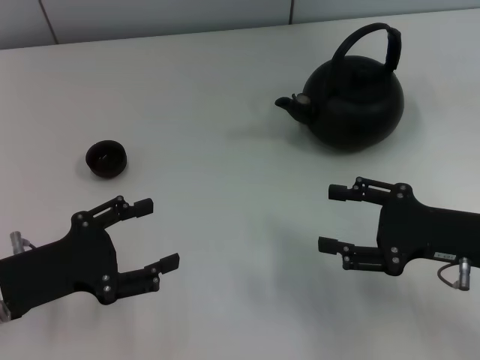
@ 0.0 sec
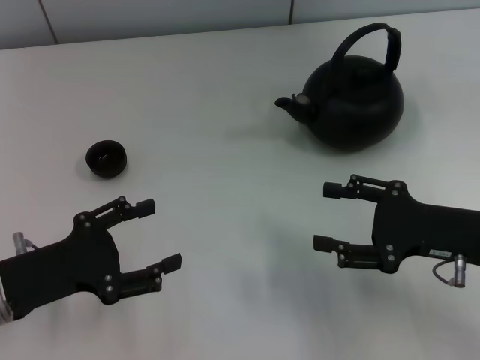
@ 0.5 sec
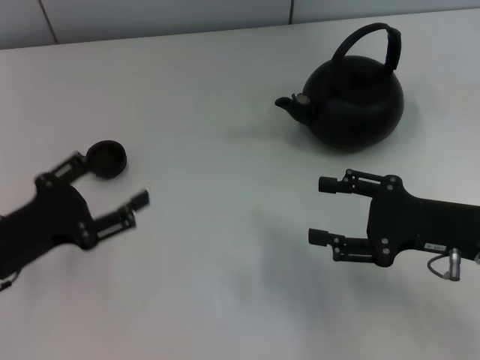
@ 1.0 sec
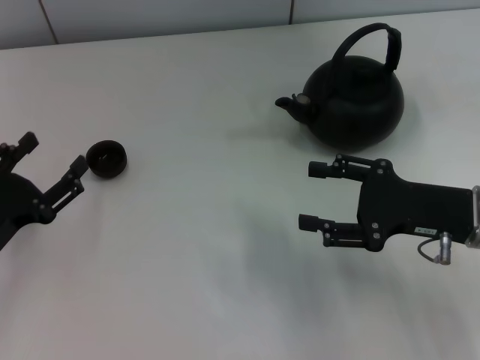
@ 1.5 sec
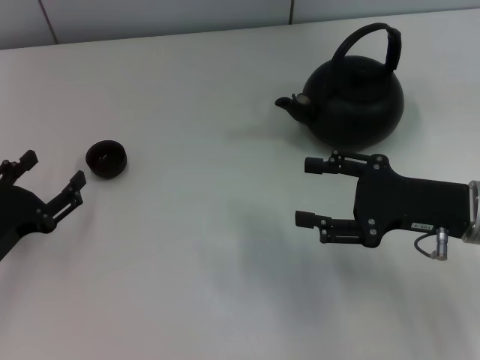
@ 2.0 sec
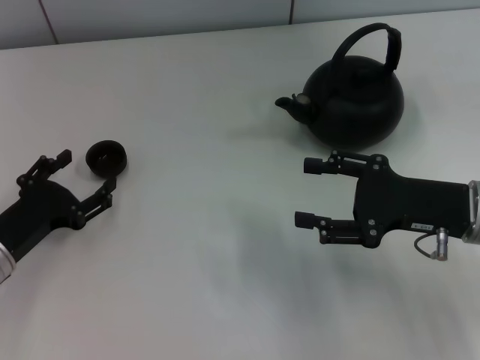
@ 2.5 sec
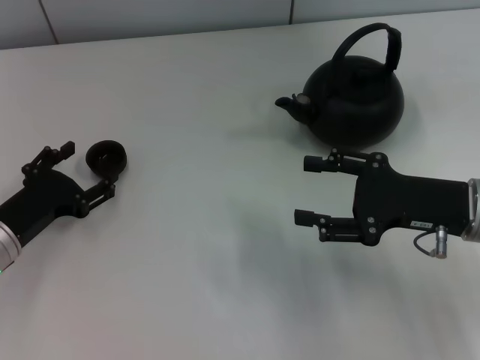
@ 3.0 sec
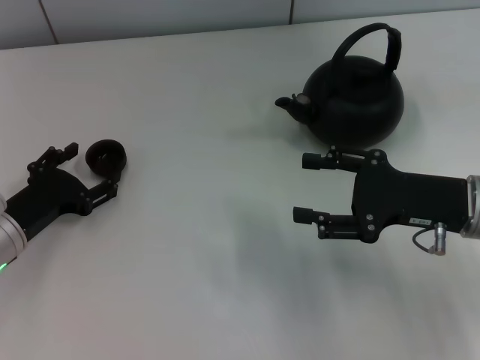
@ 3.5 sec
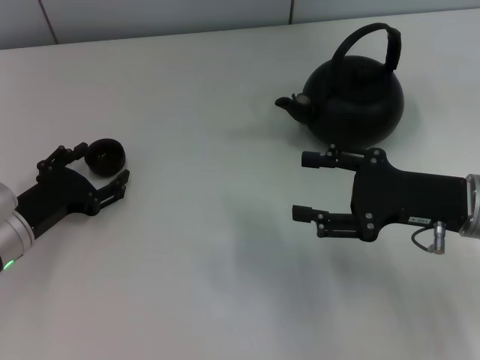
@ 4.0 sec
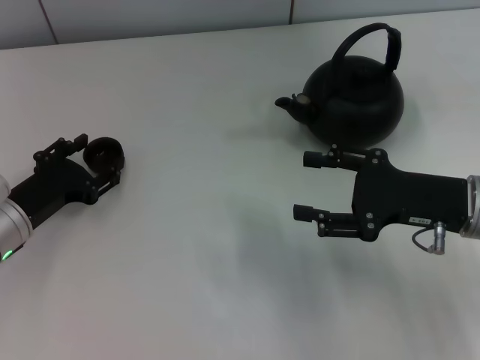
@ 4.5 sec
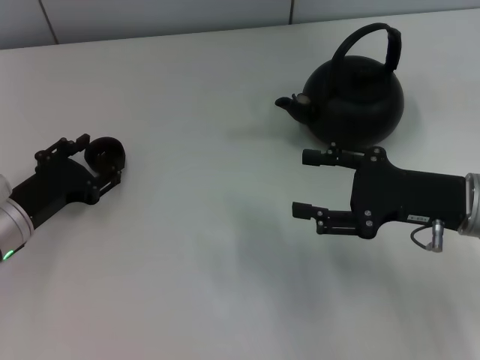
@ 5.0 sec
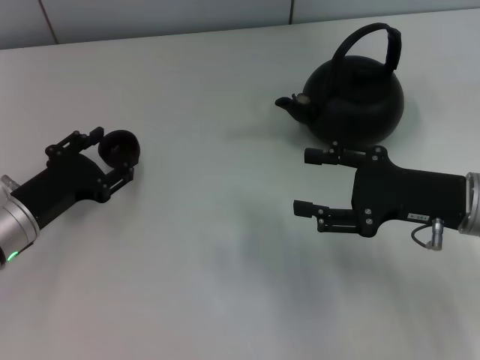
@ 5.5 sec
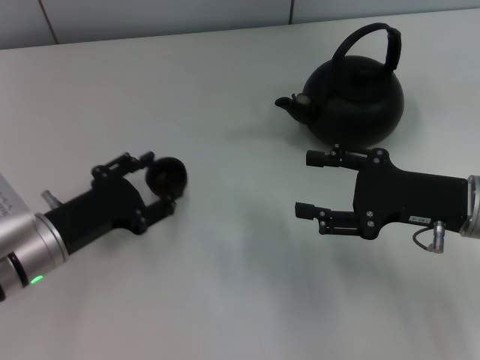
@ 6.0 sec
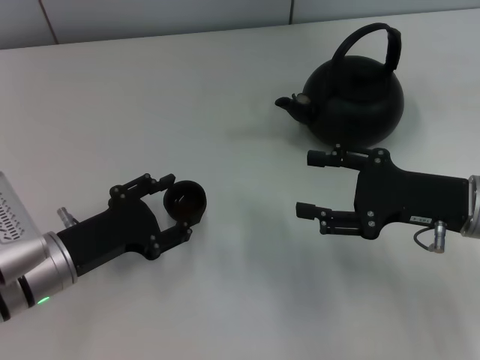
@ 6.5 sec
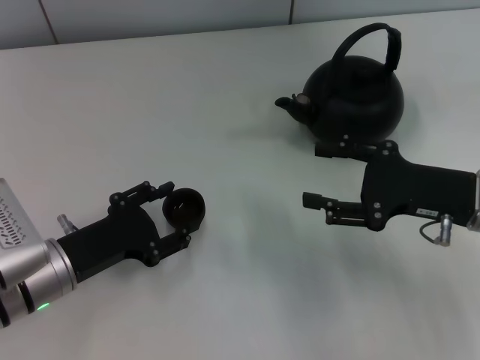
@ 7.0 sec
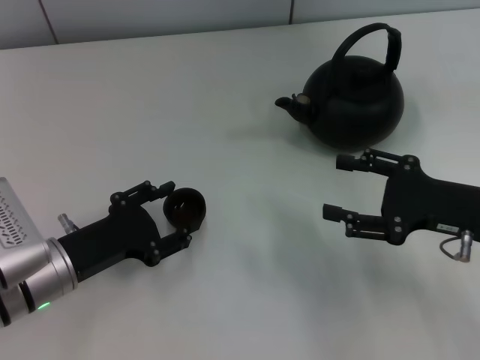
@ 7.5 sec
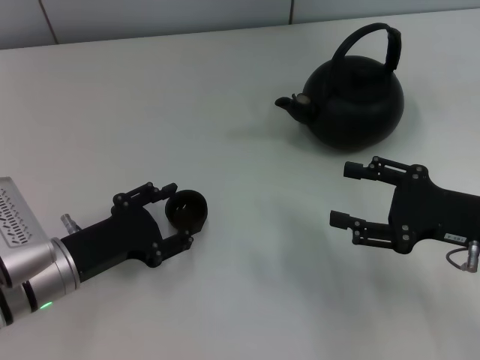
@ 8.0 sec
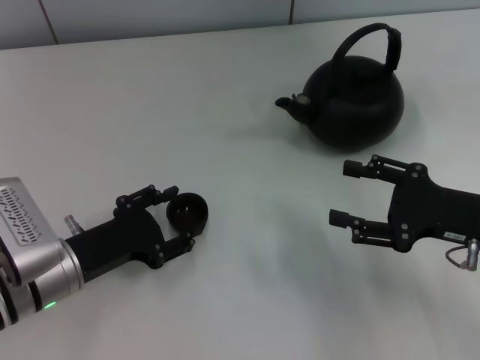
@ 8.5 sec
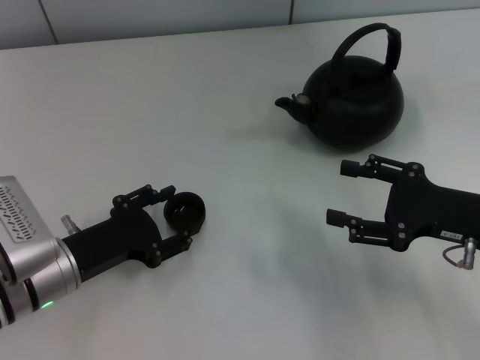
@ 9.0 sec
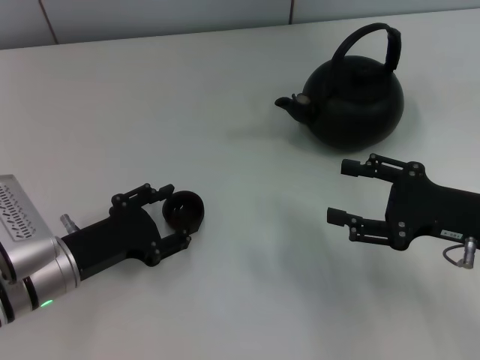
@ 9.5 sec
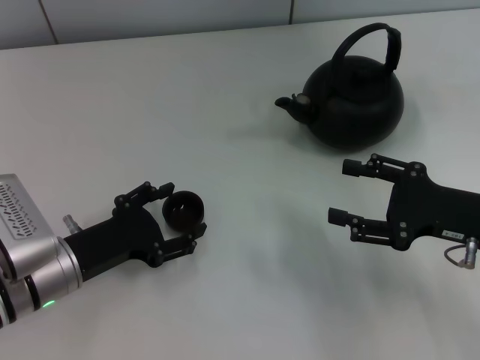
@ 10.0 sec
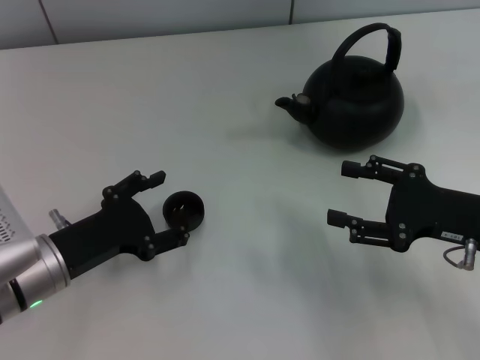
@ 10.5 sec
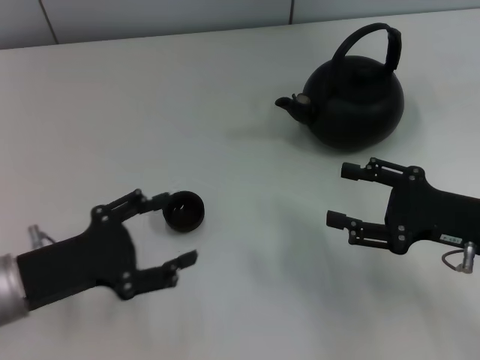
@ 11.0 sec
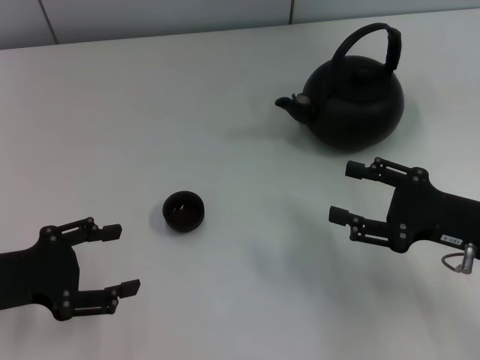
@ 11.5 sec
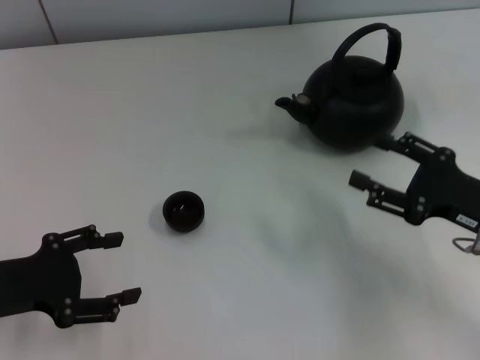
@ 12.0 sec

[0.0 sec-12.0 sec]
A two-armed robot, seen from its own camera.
Task of the whole recording: Grasp the handle of the teapot with one hand and pour tea into the teacup.
Step, 0.0 sec to 5.5 sec: Pick up the teacup with the left gripper.
Step, 6.0 sec to 10.5 sec: Place the teacup in the center of view with the left gripper.
0.0 sec to 2.0 sec: The left gripper shifts by some 5 cm.
2.0 sec to 4.0 sec: The left gripper goes some 5 cm forward.
4.0 sec to 6.0 sec: The left gripper closes its fingers.
6.0 sec to 8.0 sec: The grippers move only a little.
8.0 sec to 10.0 sec: The left gripper opens its fingers.
10.0 sec to 12.0 sec: The left gripper travels to the left and upward by about 10 cm.

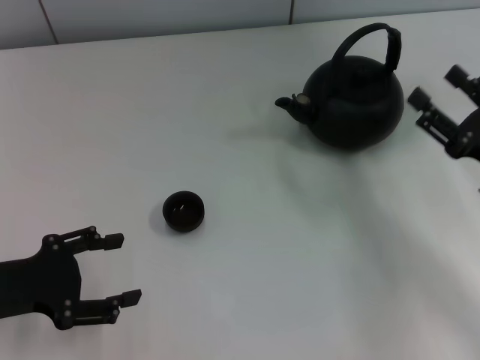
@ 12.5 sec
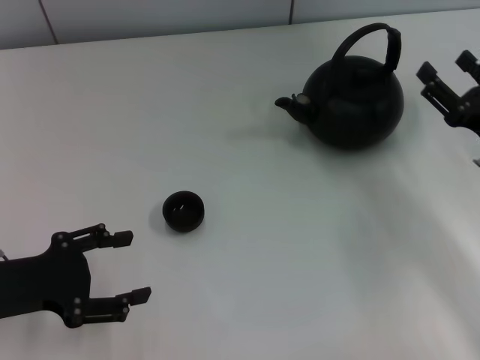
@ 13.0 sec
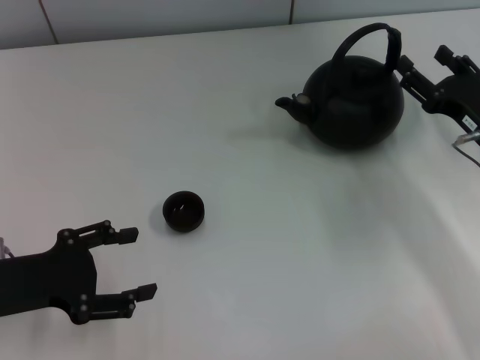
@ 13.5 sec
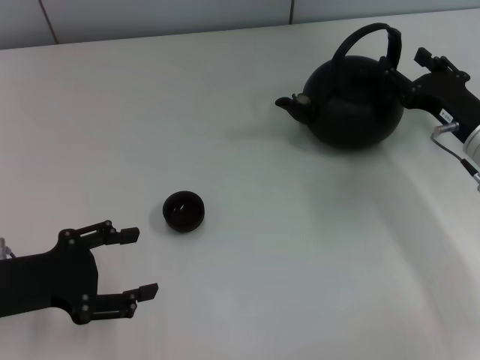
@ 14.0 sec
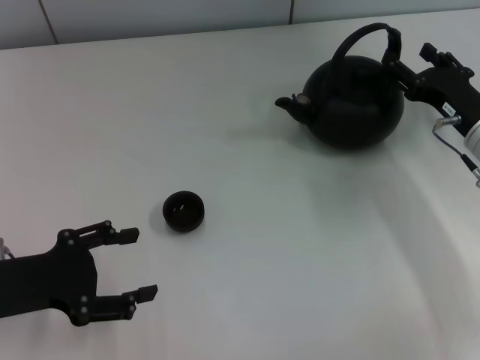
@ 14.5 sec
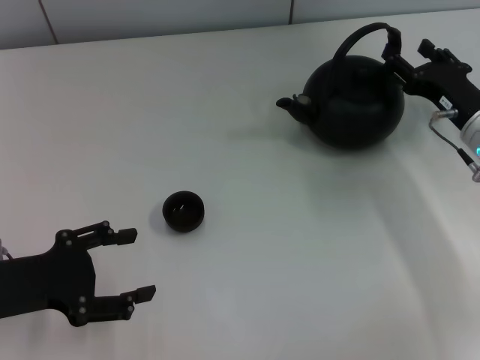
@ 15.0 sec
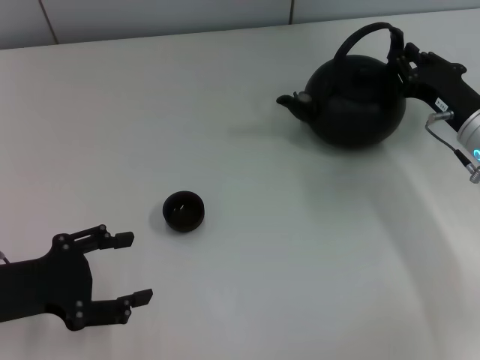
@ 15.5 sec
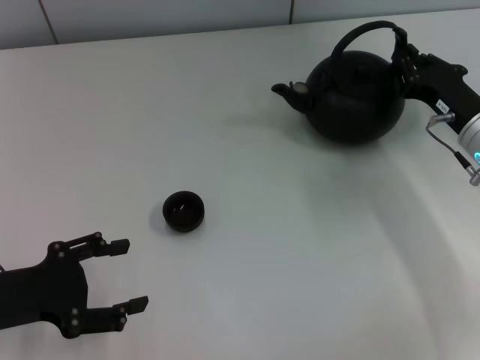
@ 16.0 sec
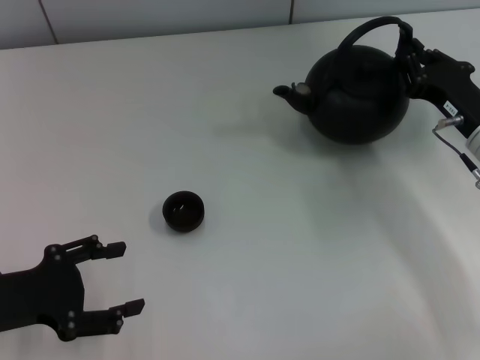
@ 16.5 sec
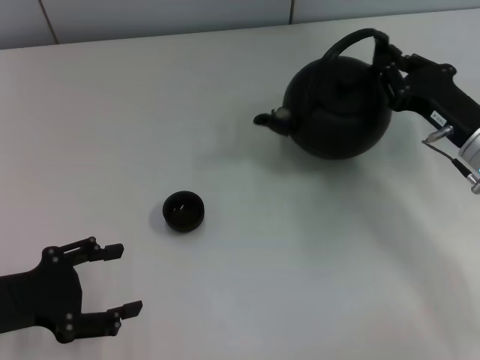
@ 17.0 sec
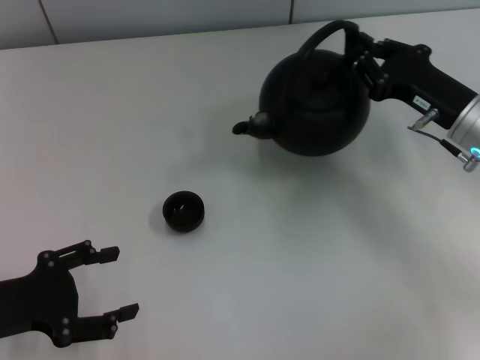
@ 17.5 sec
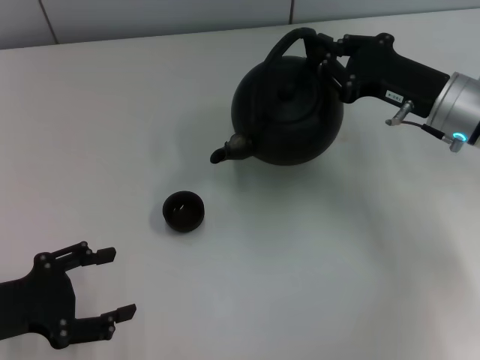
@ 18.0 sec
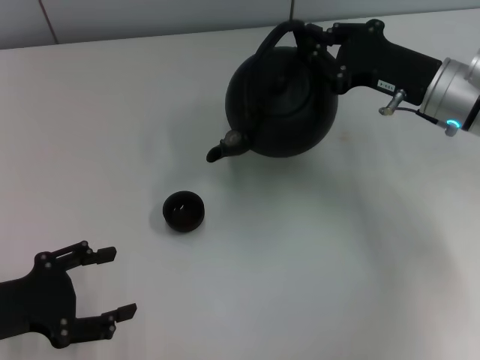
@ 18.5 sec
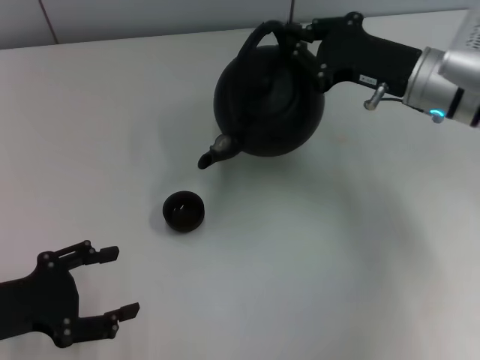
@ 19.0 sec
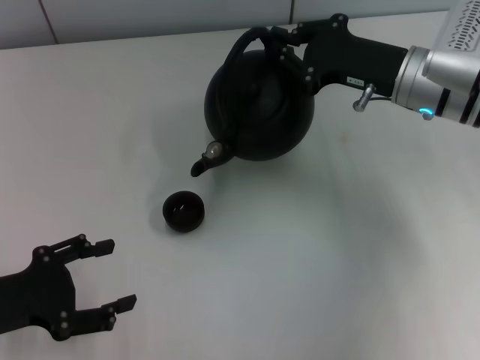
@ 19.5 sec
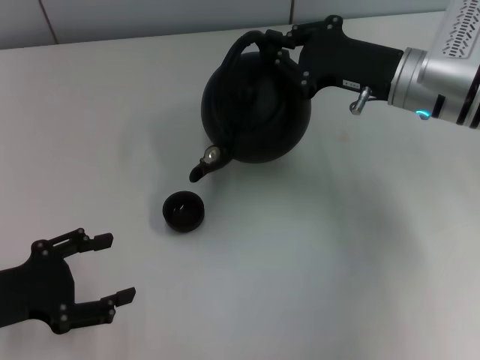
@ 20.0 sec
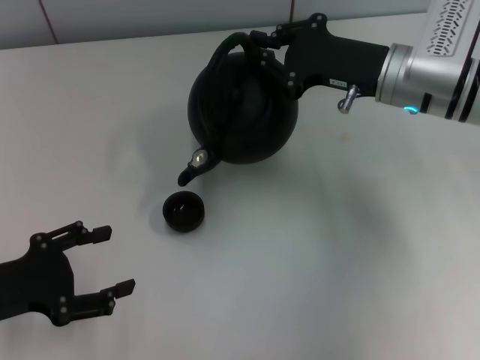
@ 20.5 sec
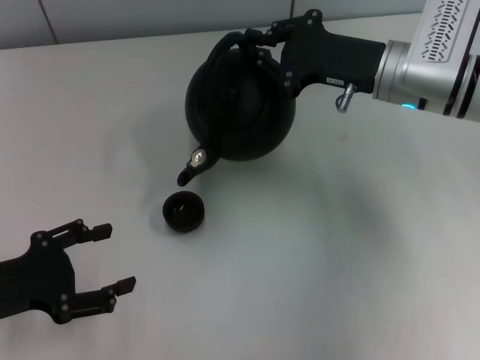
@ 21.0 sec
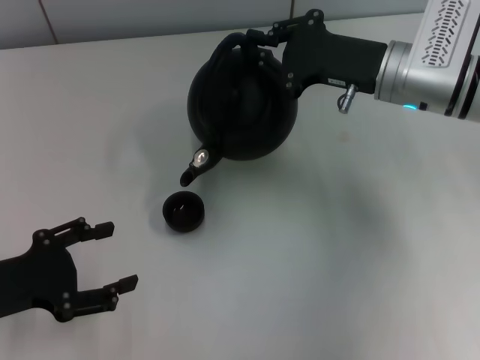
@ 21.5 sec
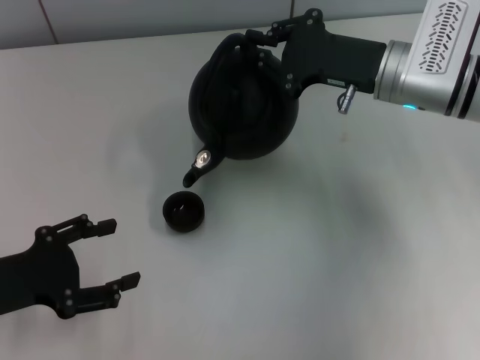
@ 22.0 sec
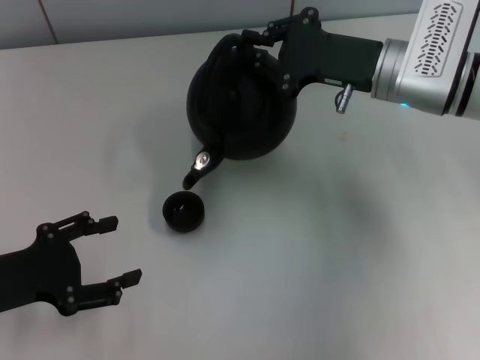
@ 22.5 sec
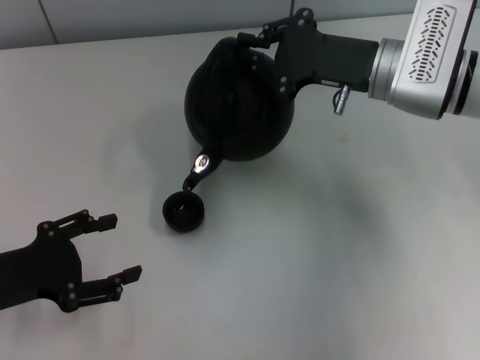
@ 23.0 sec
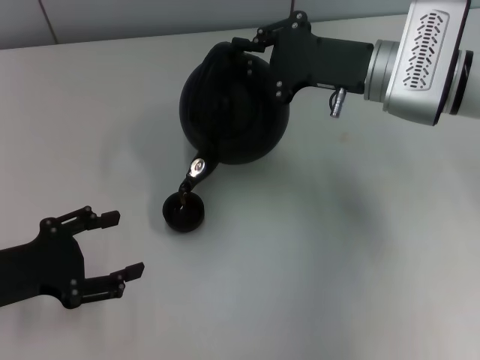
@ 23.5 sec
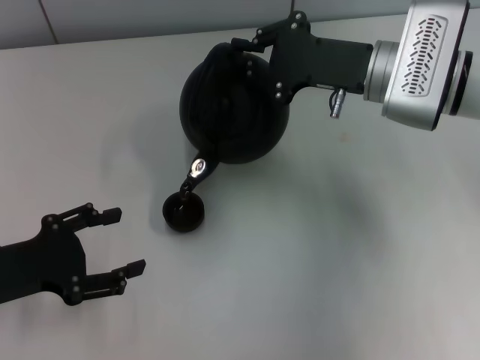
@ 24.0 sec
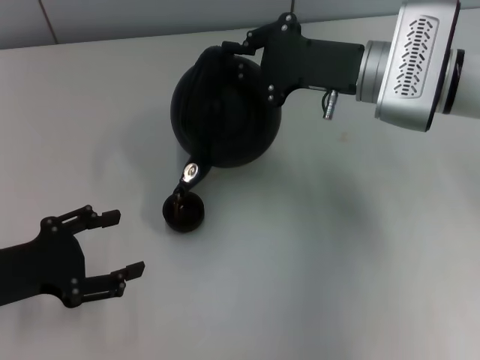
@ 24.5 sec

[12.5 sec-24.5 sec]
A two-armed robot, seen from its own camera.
Task of the whole recording: Grasp the handle of the teapot with one hand and pour tea into the teacup.
Step, 12.5 sec to 16.5 sec: Pick up the teapot with the right gripper.
12.5 sec to 14.5 sec: The right gripper goes some 10 cm forward.
14.5 sec to 16.5 sec: The right gripper closes up.
16.5 sec to 18.5 sec: The right gripper is displaced upward by approximately 5 cm.
18.5 sec to 20.5 sec: There are only small adjustments of the grippers.
20.5 sec to 24.5 sec: The grippers make only small movements.

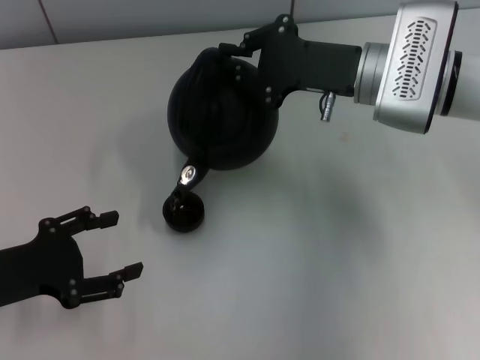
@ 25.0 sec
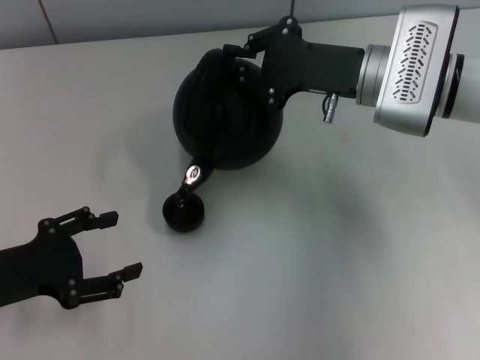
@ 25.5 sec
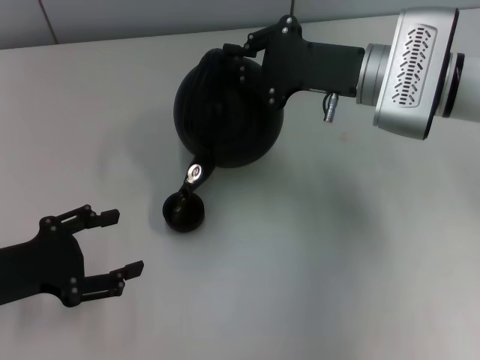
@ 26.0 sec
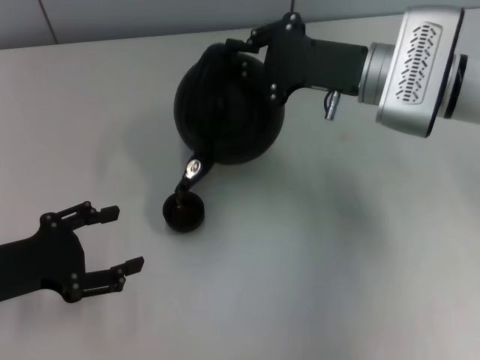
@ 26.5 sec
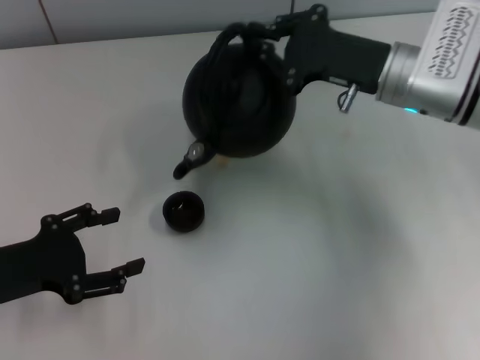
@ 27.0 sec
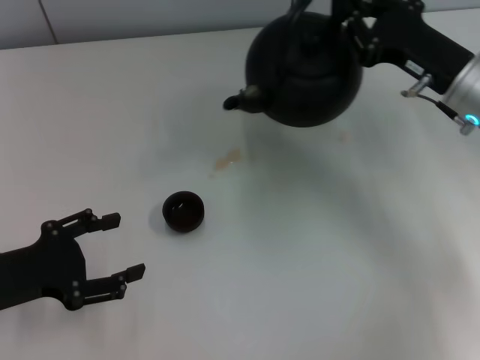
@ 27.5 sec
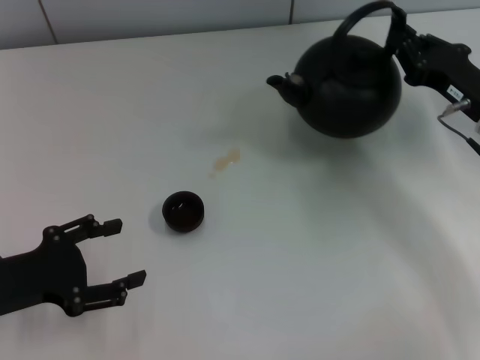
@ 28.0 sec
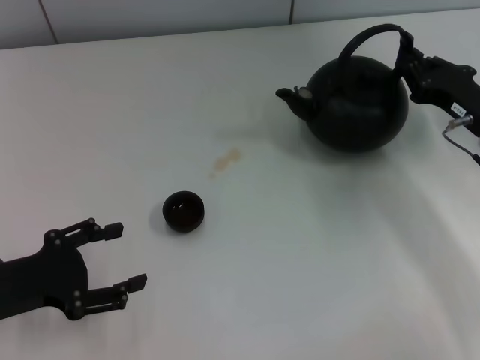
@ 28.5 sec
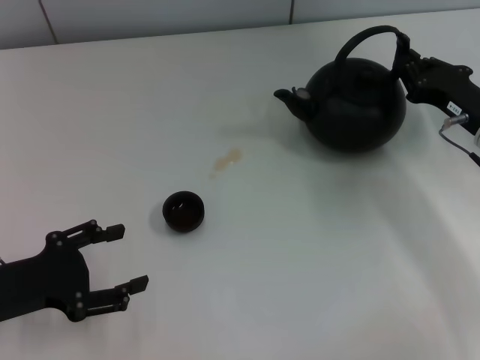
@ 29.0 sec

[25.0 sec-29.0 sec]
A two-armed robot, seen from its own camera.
Task of the whole recording: Grasp the handle of the teapot with one hand and pour tea into the teacup.
25.0 sec to 27.0 sec: The grippers stay close to where they were, moving slightly.
27.0 sec to 29.0 sec: The right gripper heads to the right and downward, covering some 10 cm.
